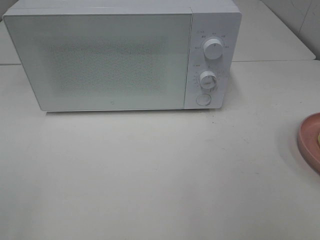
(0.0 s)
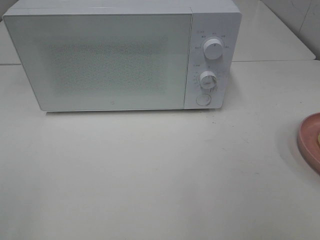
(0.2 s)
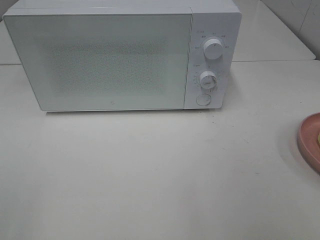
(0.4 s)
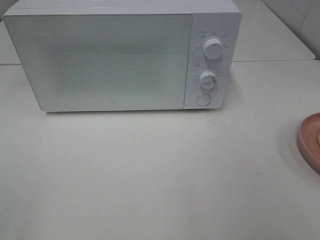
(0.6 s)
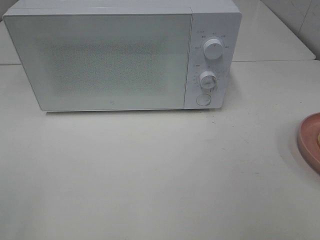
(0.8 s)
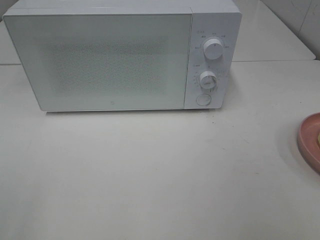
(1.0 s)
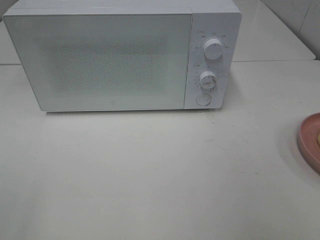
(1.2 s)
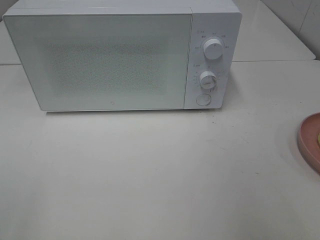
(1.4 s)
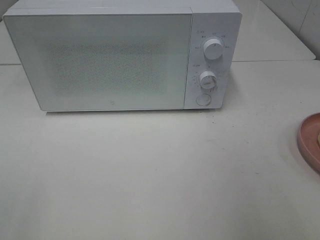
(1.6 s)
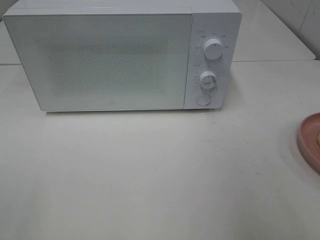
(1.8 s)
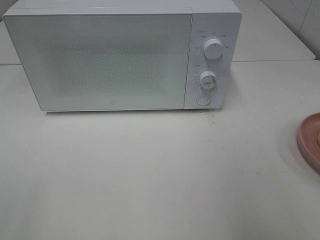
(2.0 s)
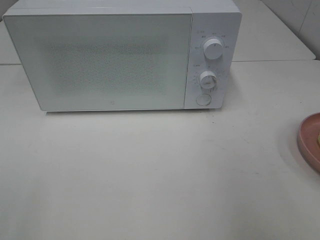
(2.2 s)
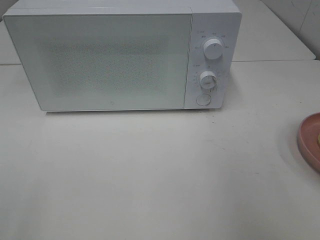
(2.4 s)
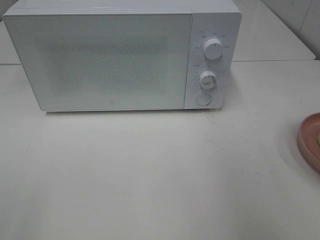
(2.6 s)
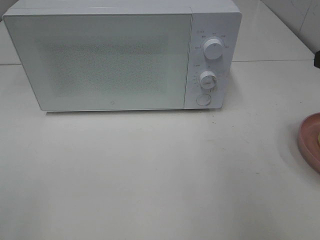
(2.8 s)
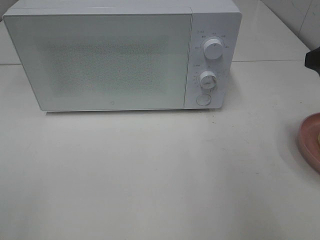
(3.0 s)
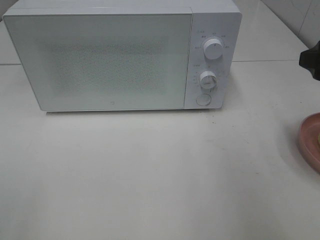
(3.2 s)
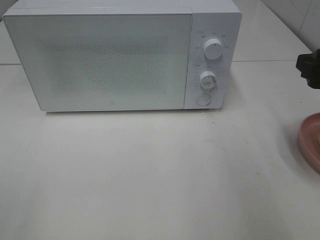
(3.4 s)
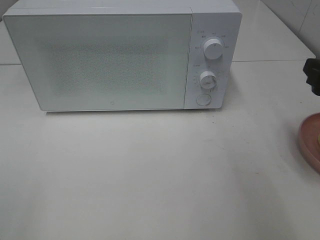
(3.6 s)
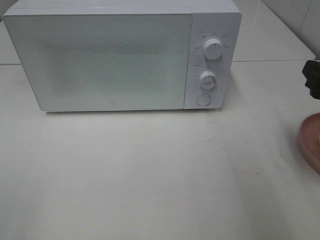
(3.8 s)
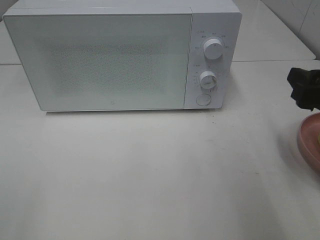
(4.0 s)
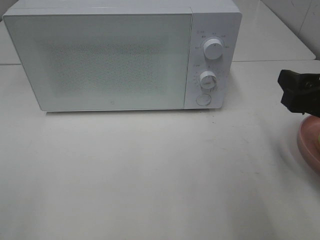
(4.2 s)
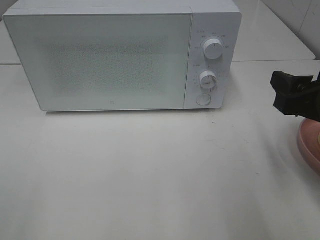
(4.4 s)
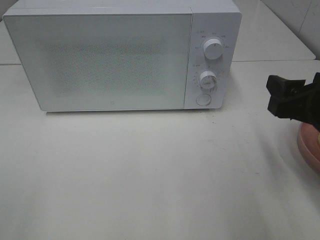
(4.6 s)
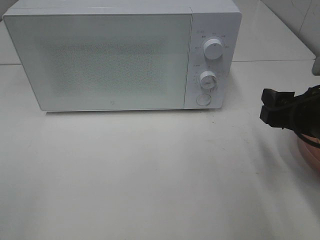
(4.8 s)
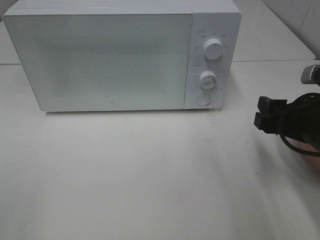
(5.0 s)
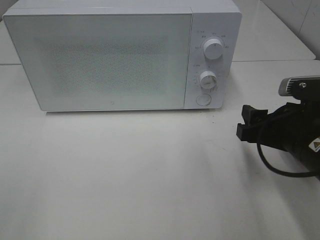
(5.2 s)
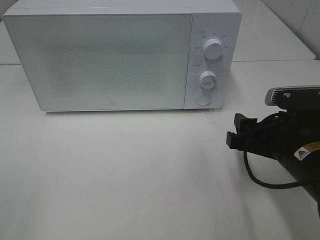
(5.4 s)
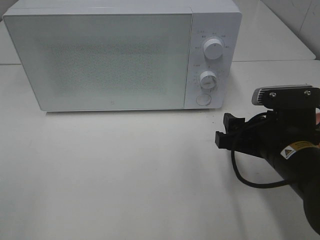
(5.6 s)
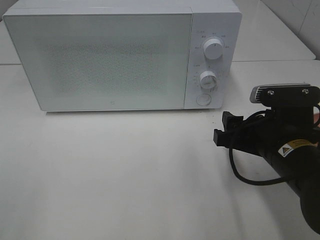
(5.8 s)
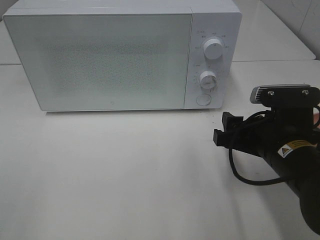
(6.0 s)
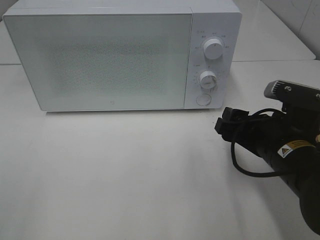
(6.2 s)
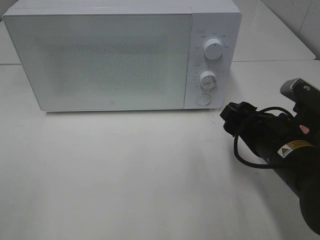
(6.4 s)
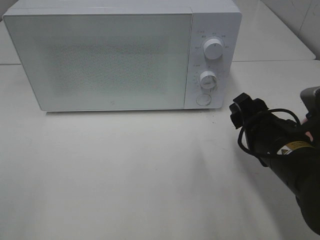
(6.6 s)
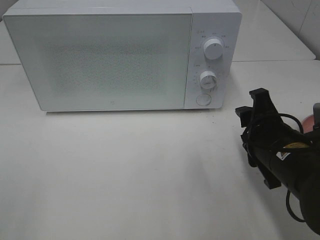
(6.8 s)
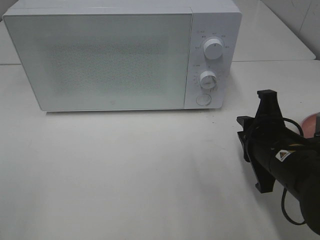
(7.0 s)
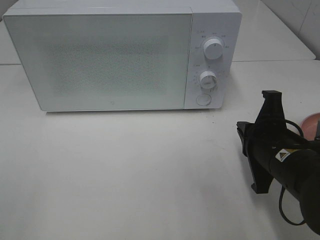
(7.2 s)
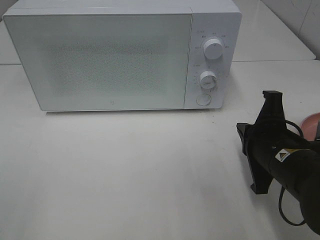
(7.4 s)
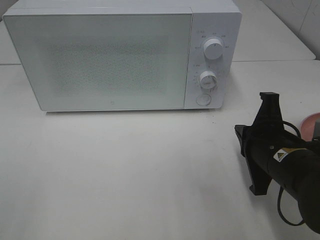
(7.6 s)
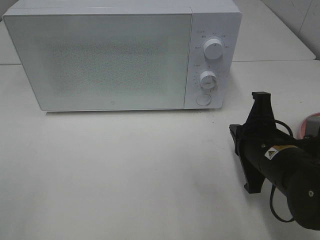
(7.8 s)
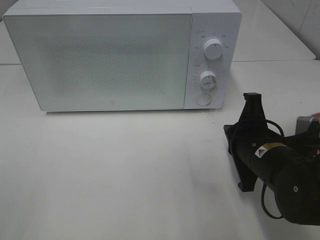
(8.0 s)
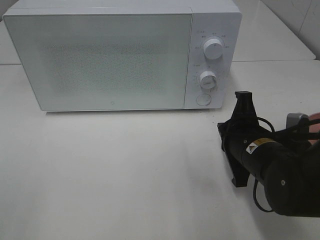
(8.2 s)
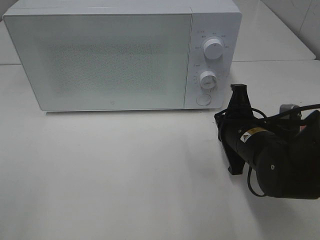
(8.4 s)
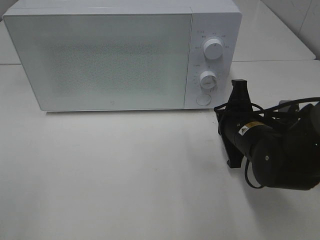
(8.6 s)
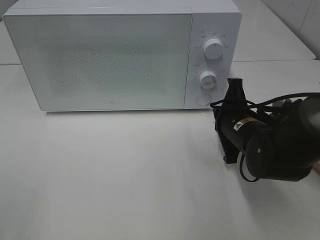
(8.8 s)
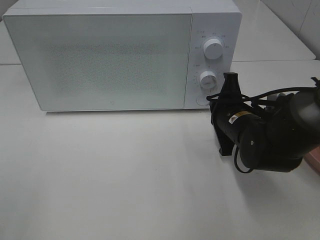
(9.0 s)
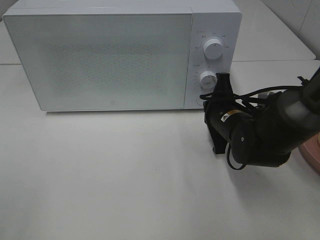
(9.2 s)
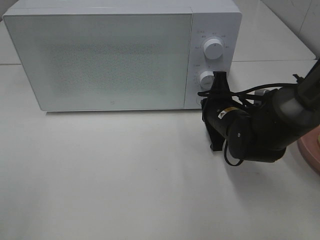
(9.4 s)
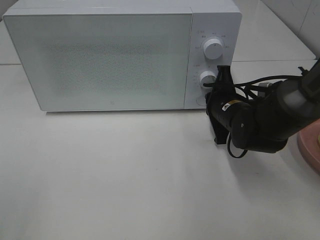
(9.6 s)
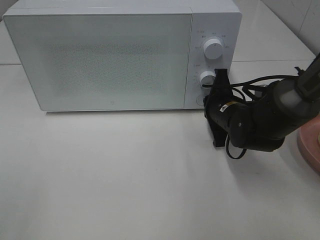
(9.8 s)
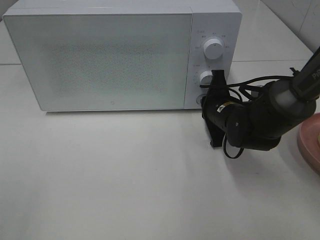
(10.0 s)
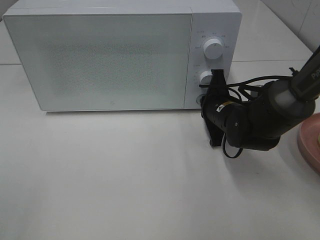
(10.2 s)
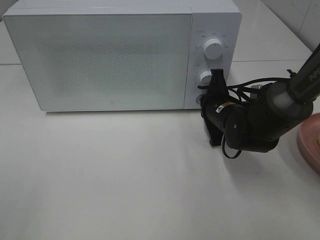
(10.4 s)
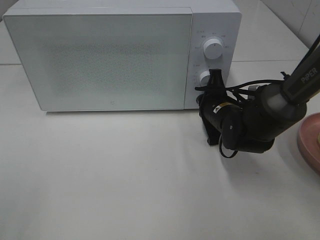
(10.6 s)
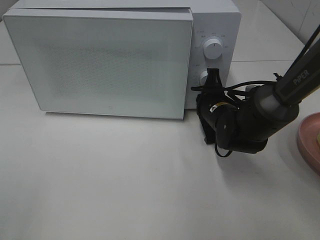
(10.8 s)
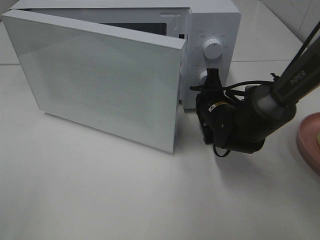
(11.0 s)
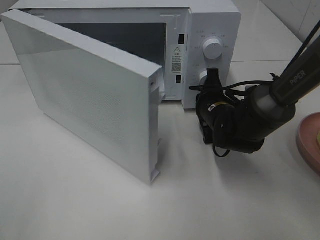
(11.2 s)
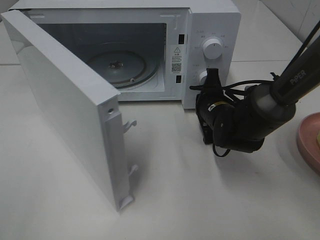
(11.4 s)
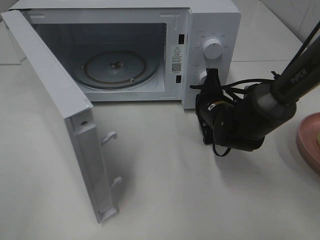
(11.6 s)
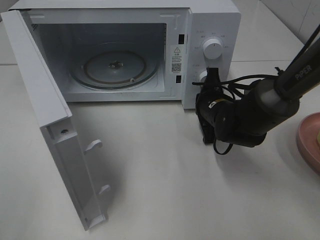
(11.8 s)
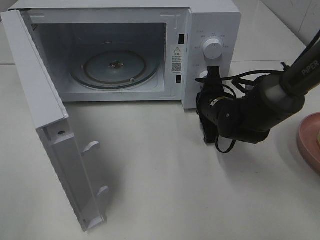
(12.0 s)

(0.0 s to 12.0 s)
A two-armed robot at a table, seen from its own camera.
Task of the whole recording: Heat Sandwich.
3.0 s - 4.4 s: The right gripper travels downward by about 5 cm.
4.4 s - 6.0 s: The right gripper is displaced downward and to the left by about 10 cm.
6.0 s - 7.6 s: The right gripper closes its fingers.
7.6 s - 9.0 s: The right gripper shifts roughly 10 cm forward.
9.0 s - 10.4 s: The grippers stay close to where they were, moving slightly.

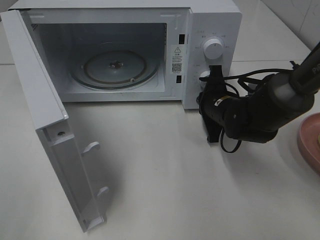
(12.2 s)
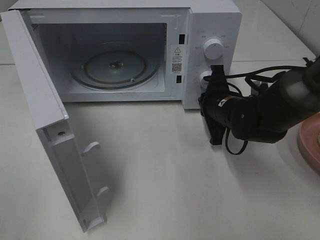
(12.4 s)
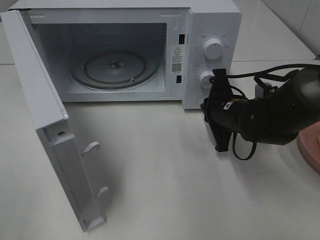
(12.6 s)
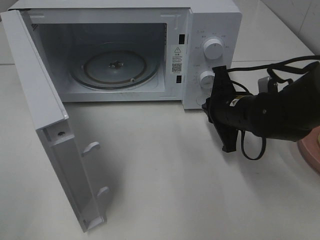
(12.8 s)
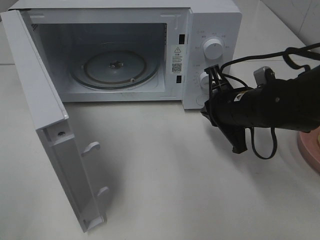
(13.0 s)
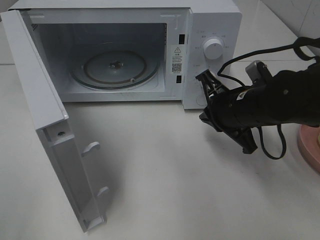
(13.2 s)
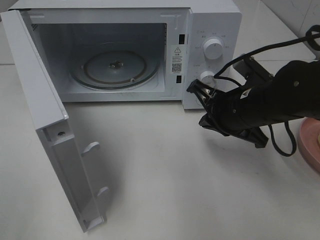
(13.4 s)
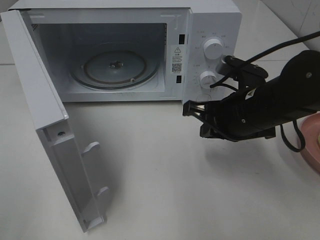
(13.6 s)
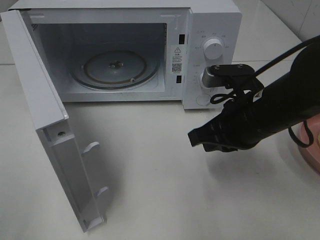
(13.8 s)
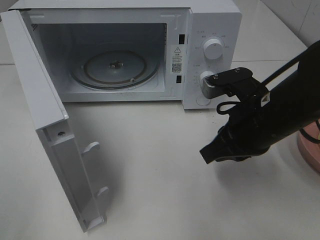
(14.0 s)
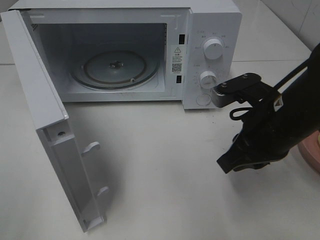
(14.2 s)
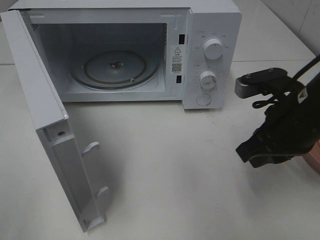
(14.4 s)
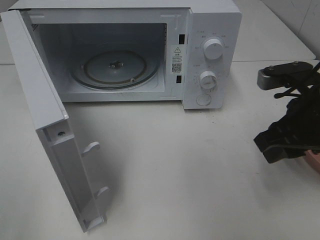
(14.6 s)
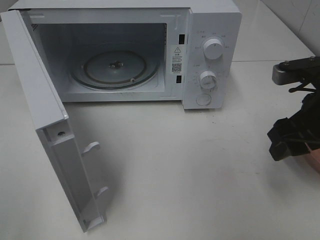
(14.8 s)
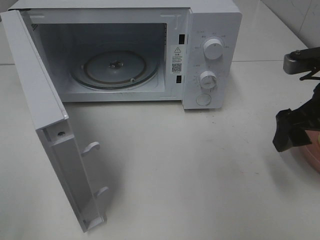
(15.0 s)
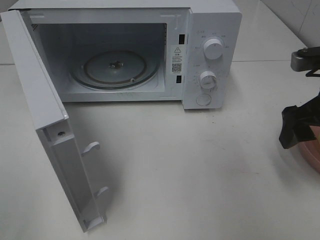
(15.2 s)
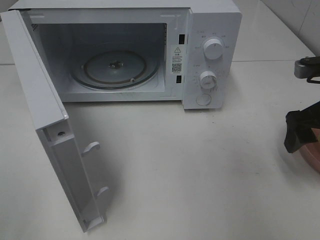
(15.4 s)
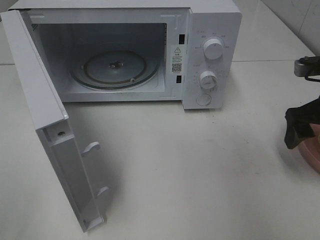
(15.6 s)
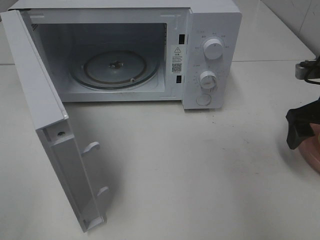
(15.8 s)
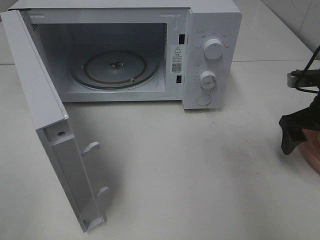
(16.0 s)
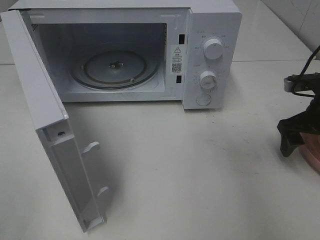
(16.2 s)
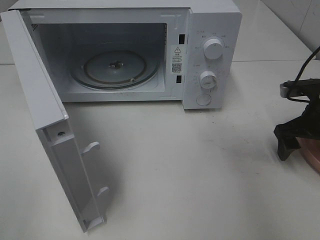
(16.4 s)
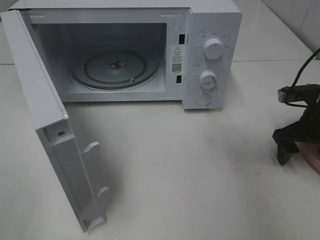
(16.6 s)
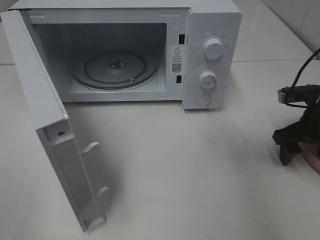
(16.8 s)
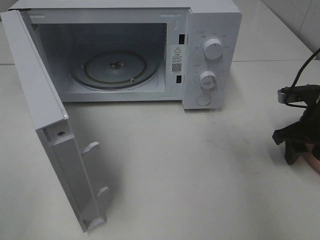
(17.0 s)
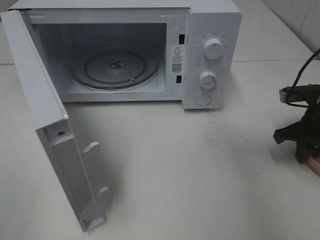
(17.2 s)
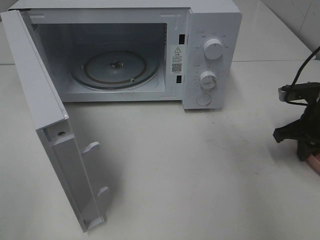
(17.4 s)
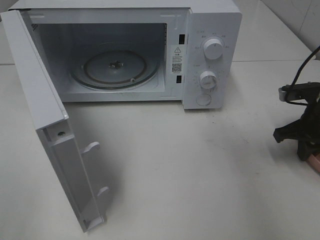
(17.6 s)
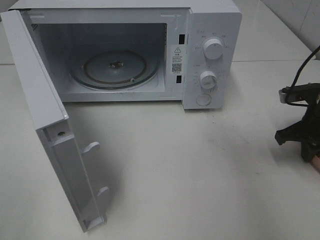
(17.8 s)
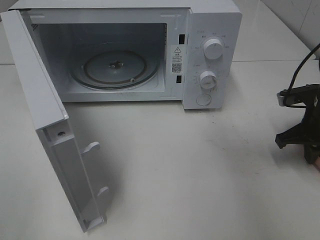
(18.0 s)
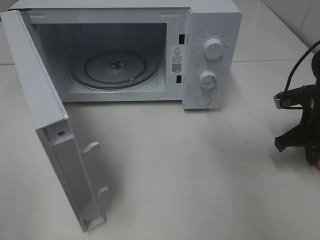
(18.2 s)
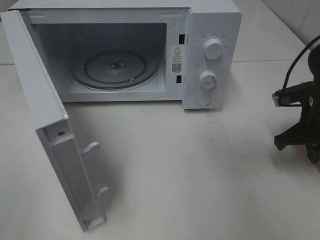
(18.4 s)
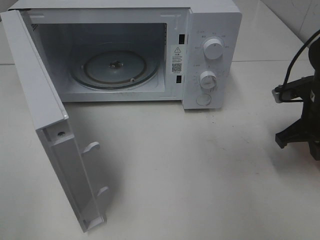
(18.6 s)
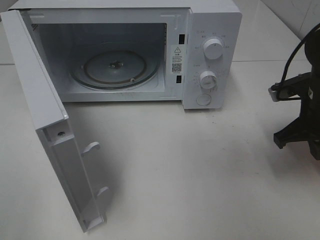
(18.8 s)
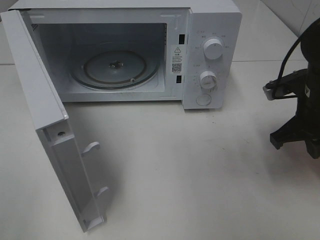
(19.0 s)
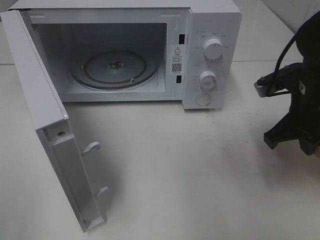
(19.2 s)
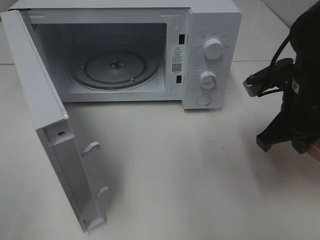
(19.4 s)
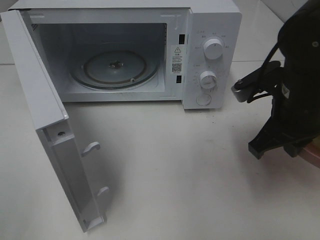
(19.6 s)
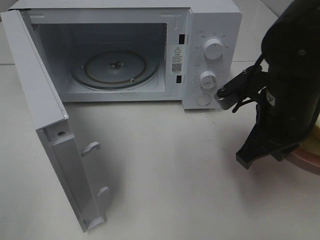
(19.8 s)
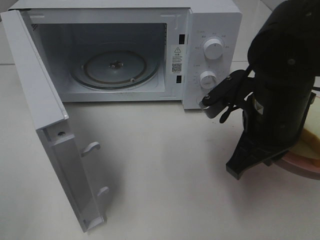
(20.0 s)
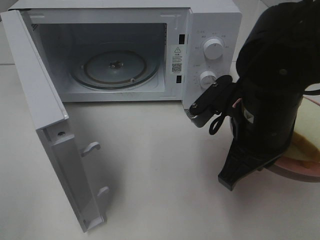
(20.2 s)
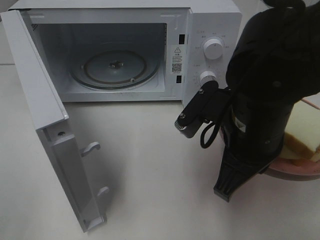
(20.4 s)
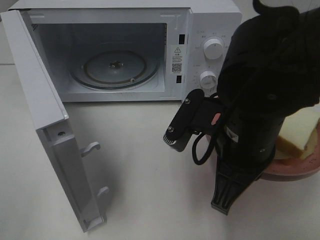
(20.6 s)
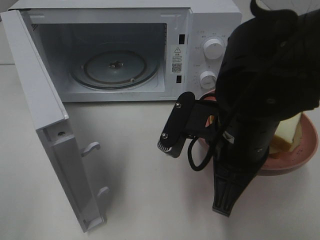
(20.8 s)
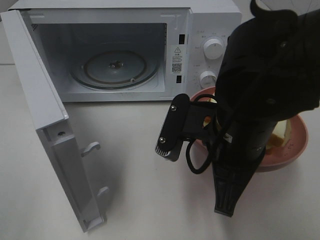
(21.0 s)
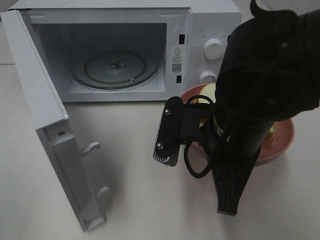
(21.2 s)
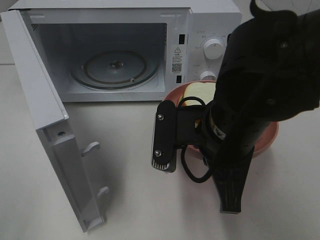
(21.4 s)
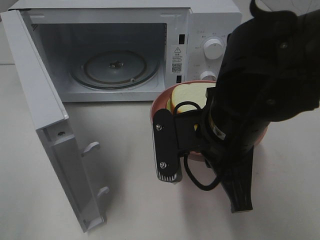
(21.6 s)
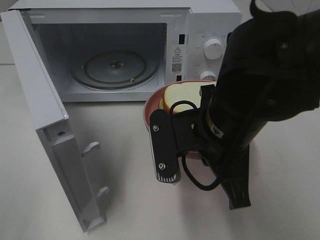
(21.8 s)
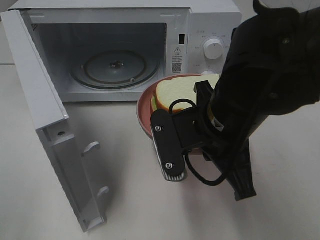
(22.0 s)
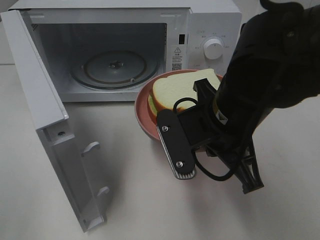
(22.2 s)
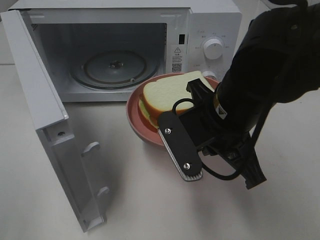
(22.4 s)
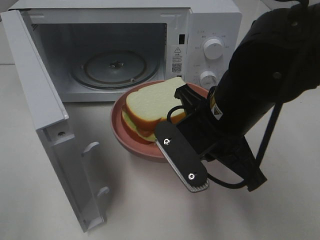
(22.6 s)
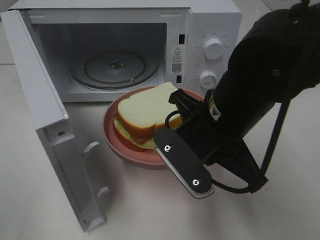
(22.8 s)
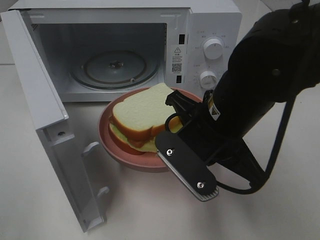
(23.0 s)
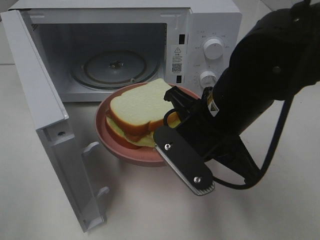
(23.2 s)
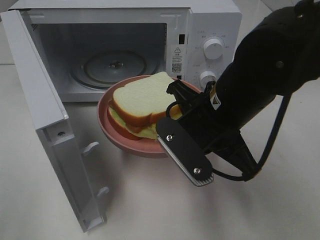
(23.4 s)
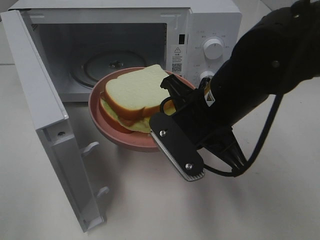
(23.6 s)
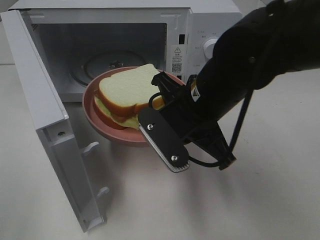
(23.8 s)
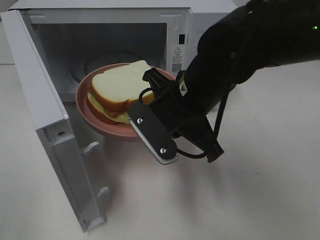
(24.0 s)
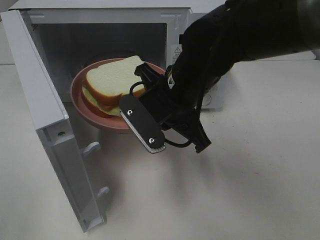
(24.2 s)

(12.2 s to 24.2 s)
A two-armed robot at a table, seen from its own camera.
Task of the whole recording: Heat Sandwich.
Step, 12.6 s - 17.2 s: Right hand: grab the plate with the sandwich.
12.2 s - 13.8 s: The right gripper moves backward and upward, about 15 cm.
13.8 s - 15.2 s: The right gripper travels to the right by about 10 cm, and opens its fingers.
15.2 s - 16.6 s: The right gripper shifts approximately 10 cm downward and forward.
16.6 s - 18.2 s: The right gripper closes its fingers.
18.2 s - 19.8 s: The right gripper goes about 15 cm to the left, upward and backward.
19.8 s - 21.2 s: The right gripper goes approximately 10 cm to the left.
22.6 s - 24.2 s: The right gripper shifts some 5 cm forward.
